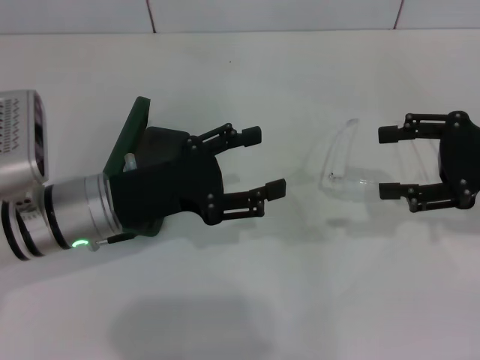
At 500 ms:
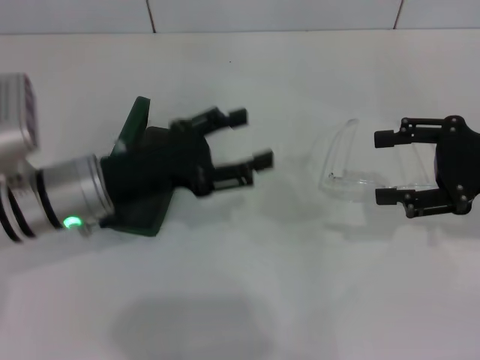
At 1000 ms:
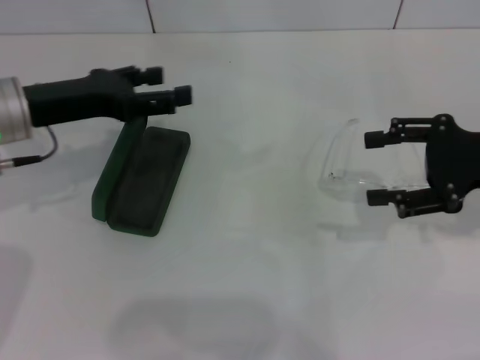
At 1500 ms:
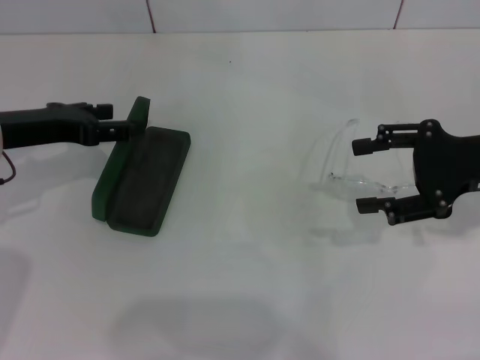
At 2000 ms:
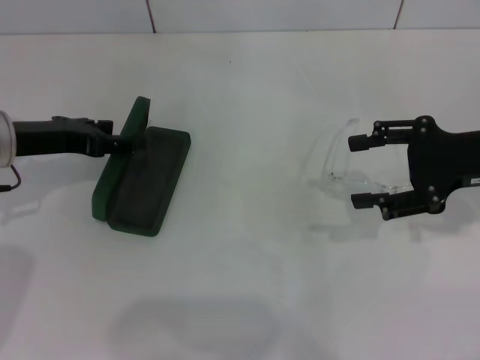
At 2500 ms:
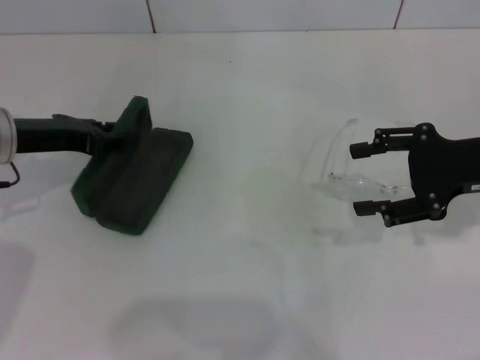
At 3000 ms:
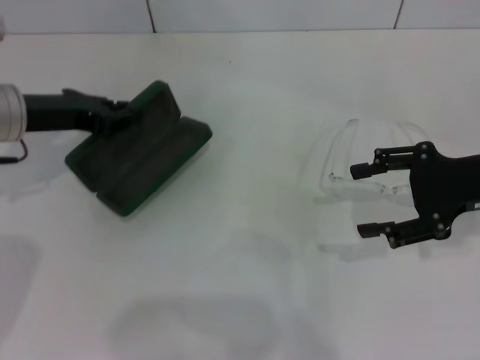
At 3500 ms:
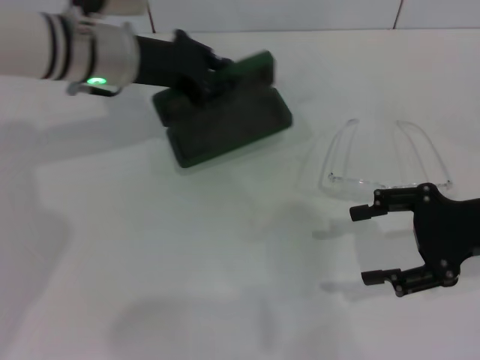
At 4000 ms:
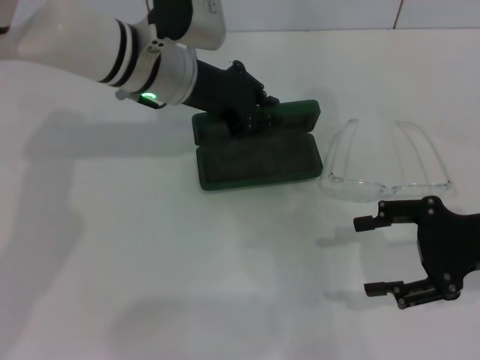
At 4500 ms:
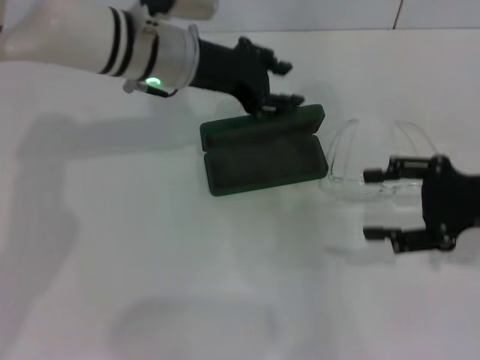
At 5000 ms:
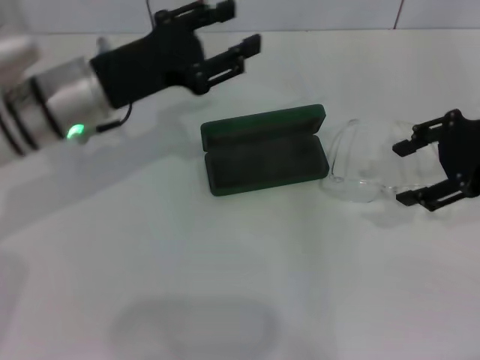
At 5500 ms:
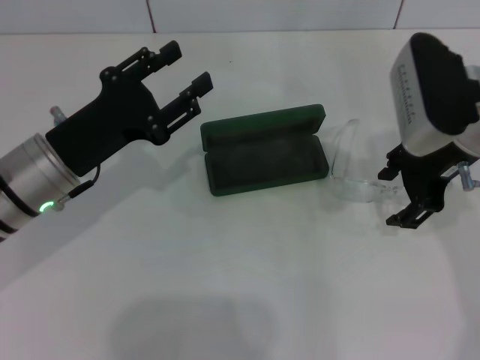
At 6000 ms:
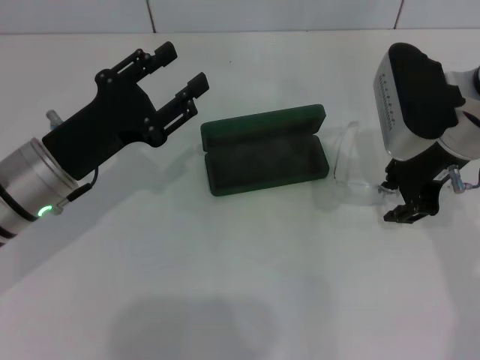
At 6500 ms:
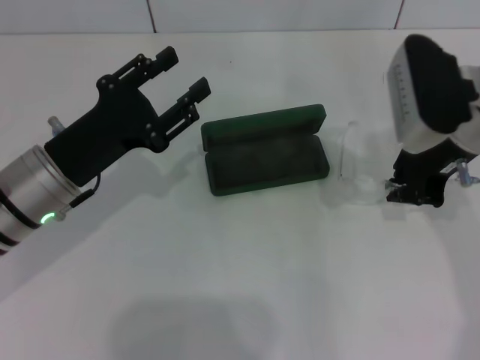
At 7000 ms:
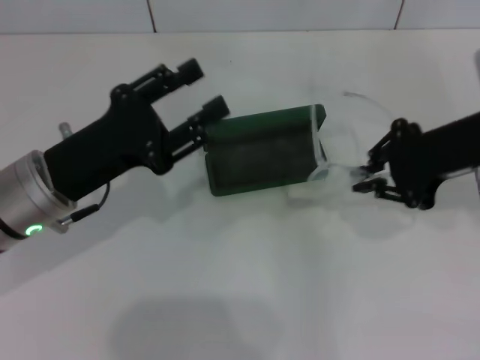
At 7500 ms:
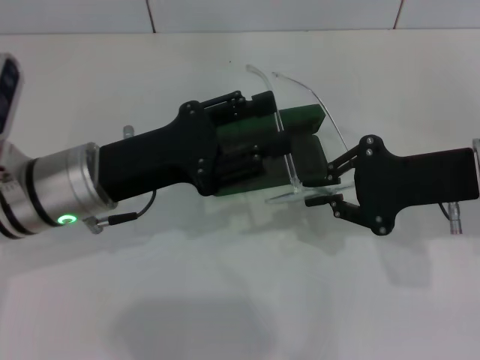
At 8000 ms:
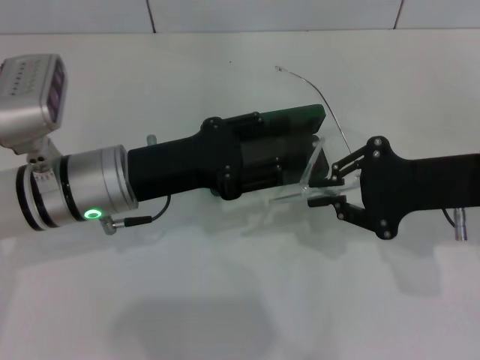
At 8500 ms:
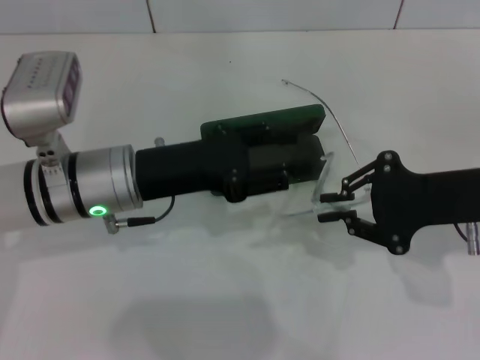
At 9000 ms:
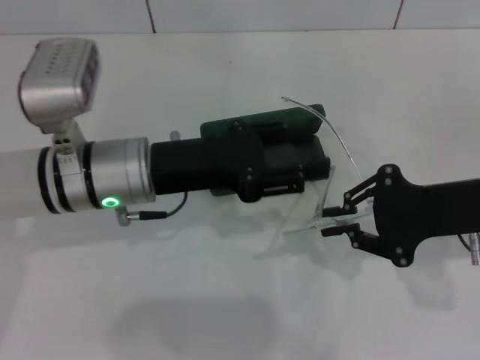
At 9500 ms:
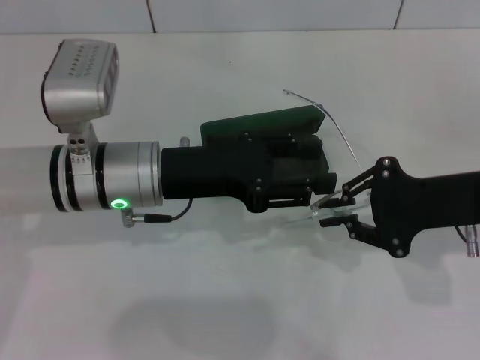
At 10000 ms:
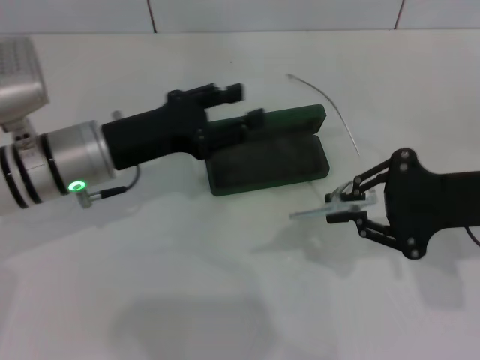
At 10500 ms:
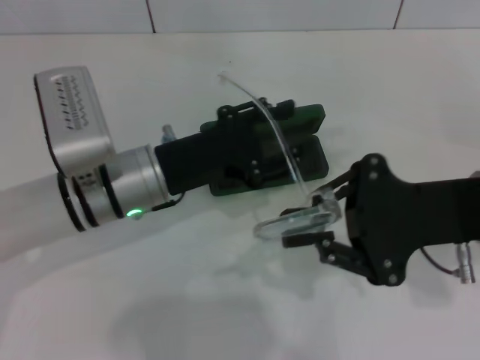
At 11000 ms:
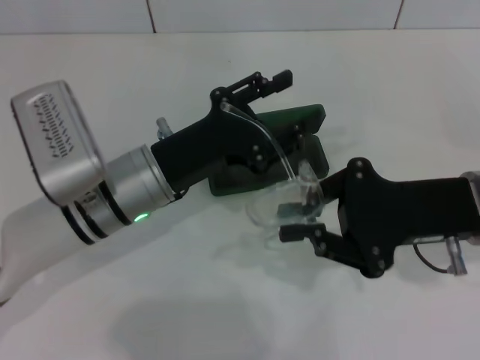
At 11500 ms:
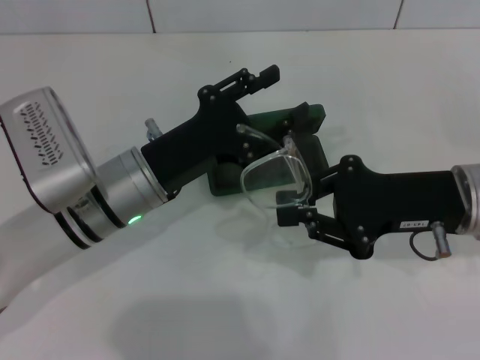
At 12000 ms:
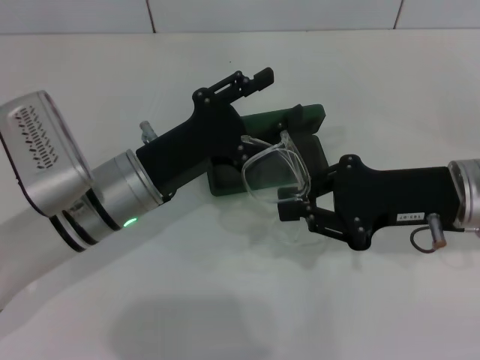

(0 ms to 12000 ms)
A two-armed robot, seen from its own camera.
Step, 0 ms - 2500 ms: Grab the glasses case with your left hand.
Step, 3000 ms - 4000 ms: Place the glasses case in the center of the table with your left hand.
Step, 4500 ms - 6000 ms: Grab the eyeglass frame with your right hand.
0 ms - 2000 ms: The left gripper shifts roughly 10 cm to the left and forward.
2000 ms - 4000 ms: The right gripper goes roughly 5 cm backward. The left gripper heads to the right, covering about 15 cm, and closes.
4000 ms - 6000 ms: The left gripper shifts roughly 20 cm backward, to the left and downward, and opens. The right gripper is displaced to the left, forward and upward by approximately 15 cm.
6000 ms - 8000 ms: The right gripper goes some 10 cm backward and to the right, and closes its fingers. The left gripper shifts roughly 5 cm to the right.
8000 ms - 10000 ms: There are only small adjustments of the grippers.
10000 ms - 12000 ms: The right gripper shifts by approximately 5 cm; the left gripper changes place by about 5 cm.

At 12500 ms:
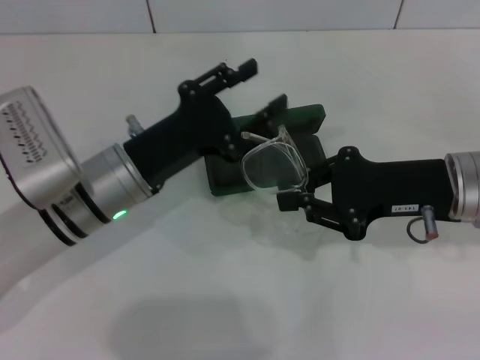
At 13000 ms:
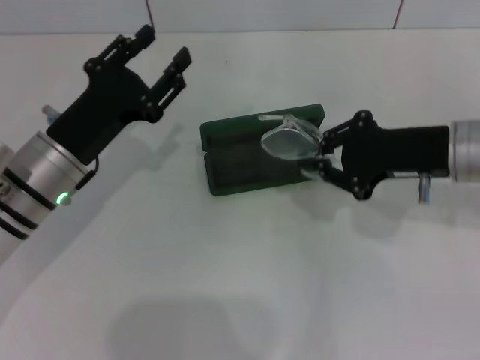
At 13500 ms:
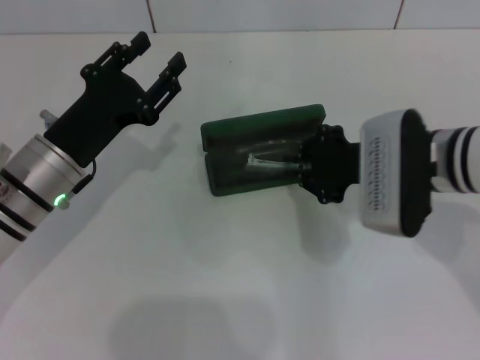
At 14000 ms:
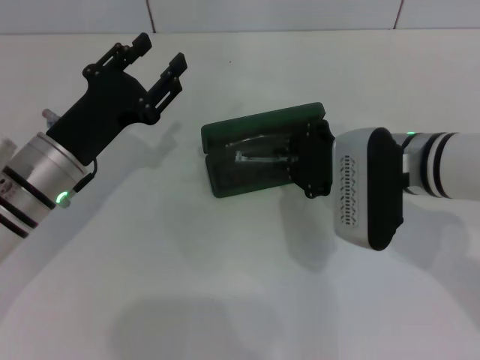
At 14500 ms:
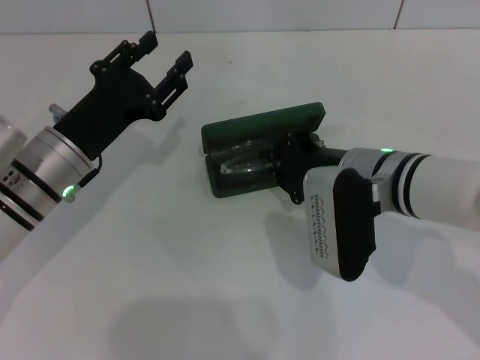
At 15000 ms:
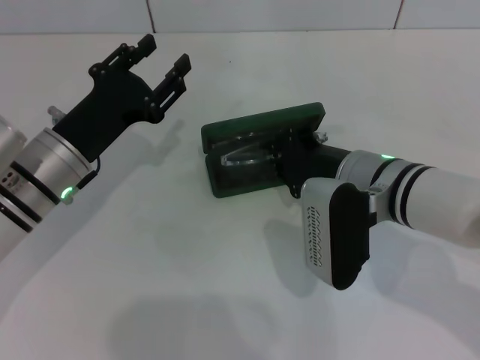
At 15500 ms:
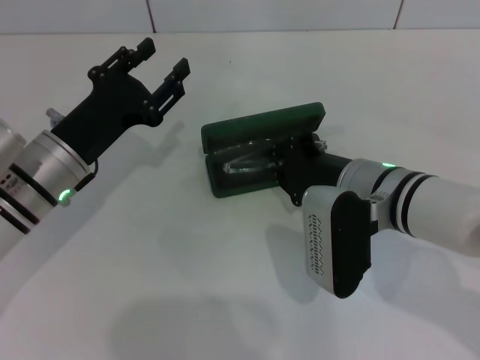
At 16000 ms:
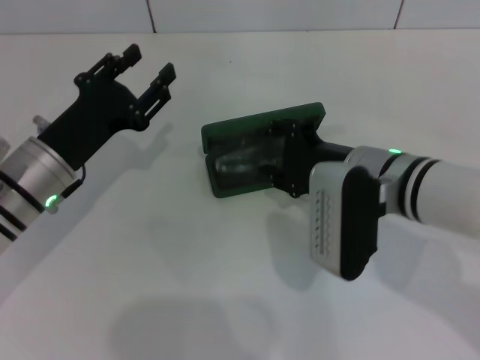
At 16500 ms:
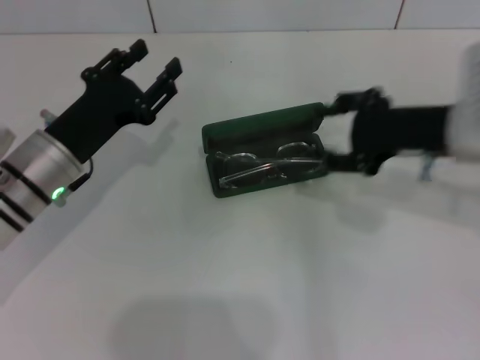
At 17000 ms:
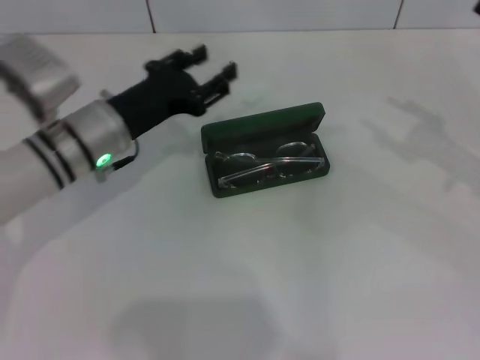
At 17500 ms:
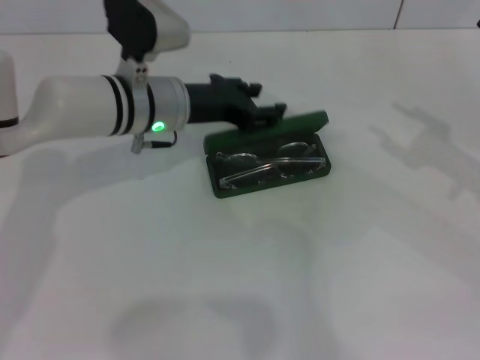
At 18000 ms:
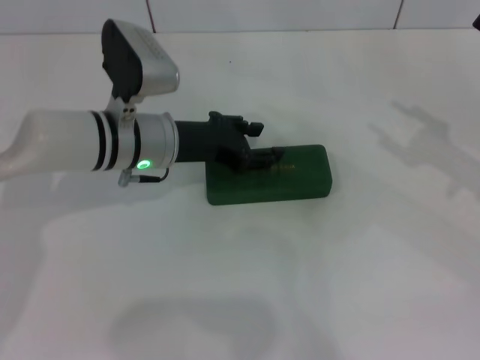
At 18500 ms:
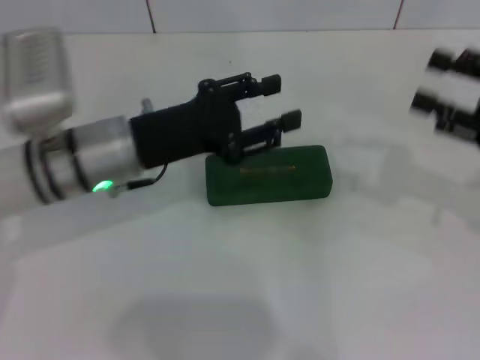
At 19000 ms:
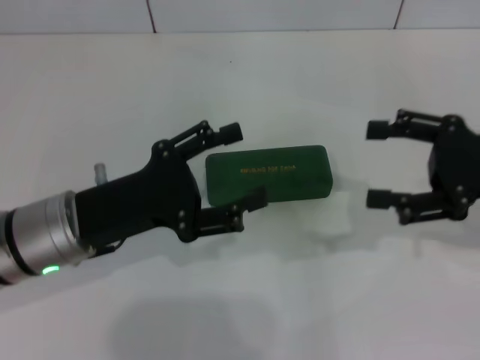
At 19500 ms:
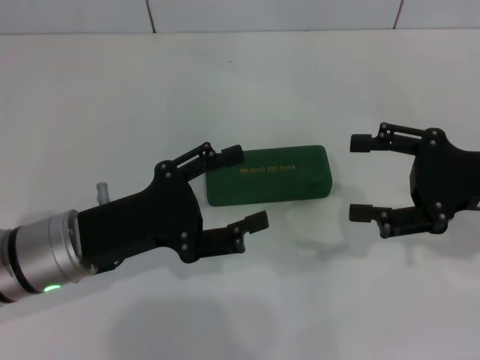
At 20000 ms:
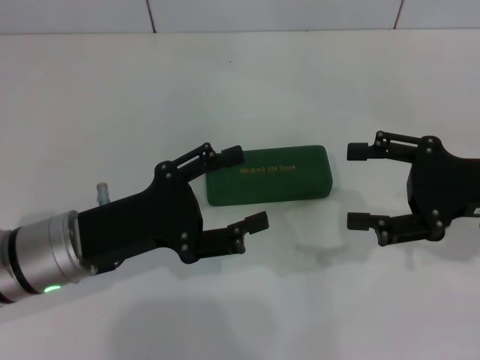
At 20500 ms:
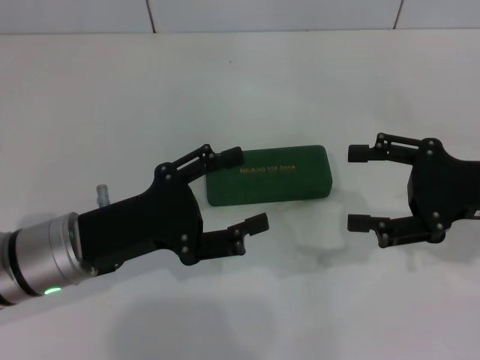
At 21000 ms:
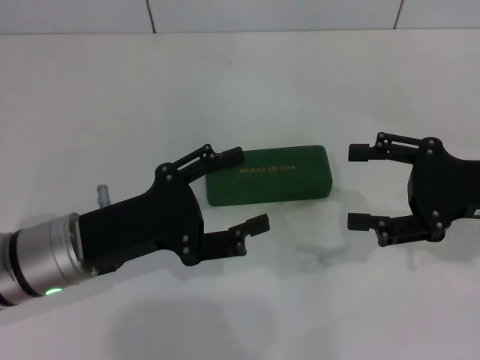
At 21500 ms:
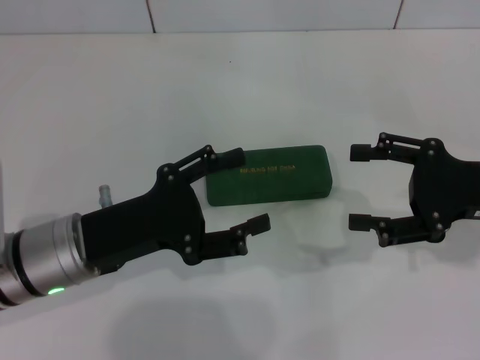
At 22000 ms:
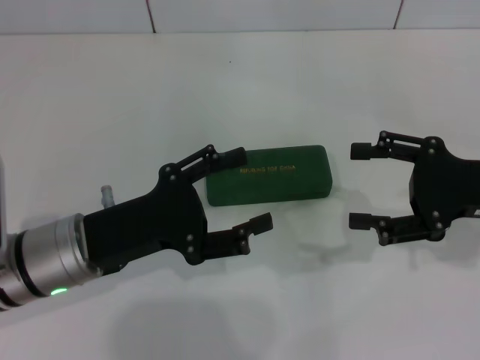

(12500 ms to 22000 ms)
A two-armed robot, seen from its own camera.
Step, 12500 ms - 16000 ms: Put the glasses into the case with your right hand.
Step, 16500 ms - 18000 ms: Close the glasses case with your left hand.
12500 ms - 14500 ms: The right gripper moves to the left, about 10 cm, while the left gripper travels to the left by approximately 5 cm.
14500 ms - 16500 ms: The right gripper shifts approximately 10 cm to the right and upward, and opens up.
16500 ms - 18000 ms: The left gripper heads to the right and forward, covering about 10 cm, while the right gripper goes about 15 cm to the right.
18000 ms - 20000 ms: The left gripper moves backward and to the left, roughly 15 cm, and opens its fingers. Meanwhile the right gripper moves to the left, some 5 cm.
20000 ms - 22000 ms: Both grippers stay about where they are.
